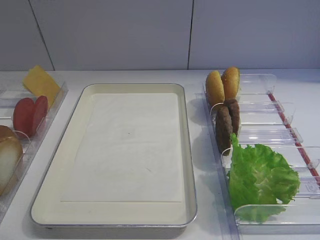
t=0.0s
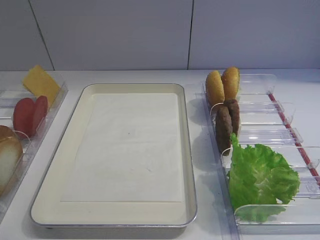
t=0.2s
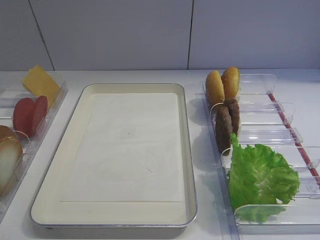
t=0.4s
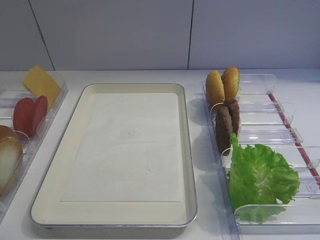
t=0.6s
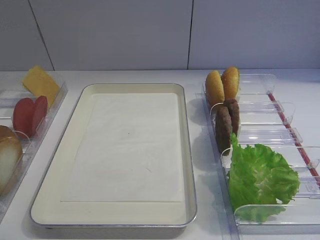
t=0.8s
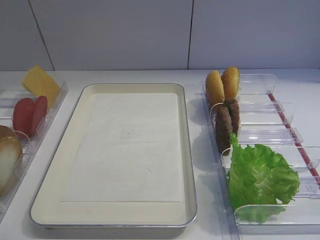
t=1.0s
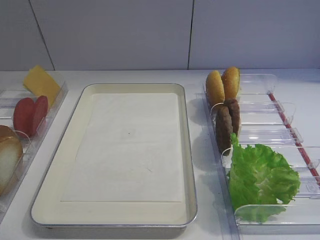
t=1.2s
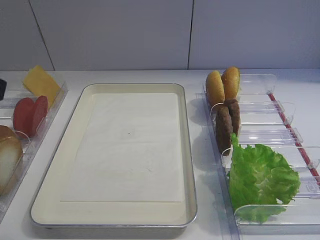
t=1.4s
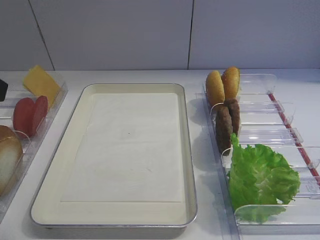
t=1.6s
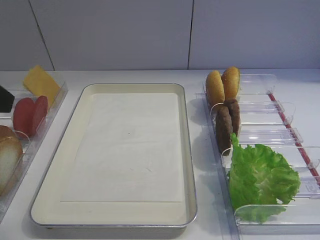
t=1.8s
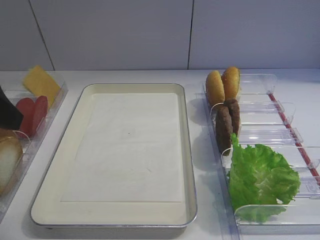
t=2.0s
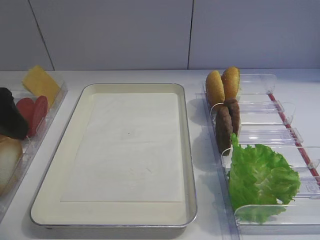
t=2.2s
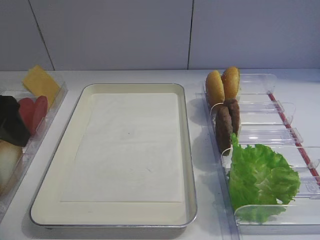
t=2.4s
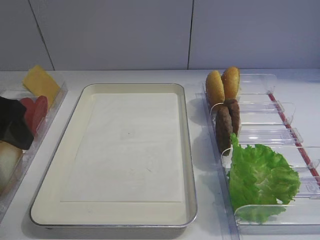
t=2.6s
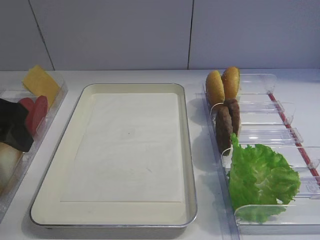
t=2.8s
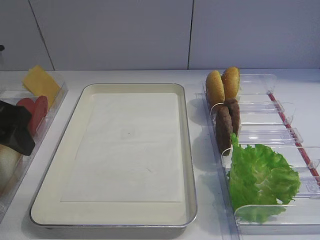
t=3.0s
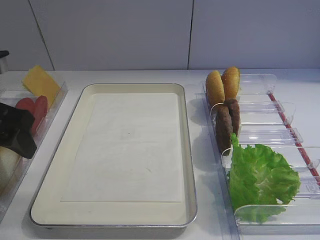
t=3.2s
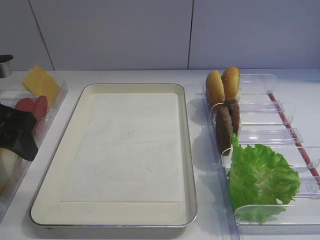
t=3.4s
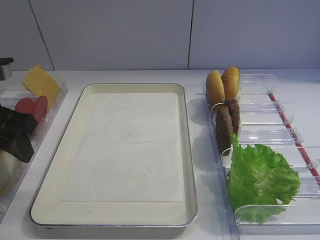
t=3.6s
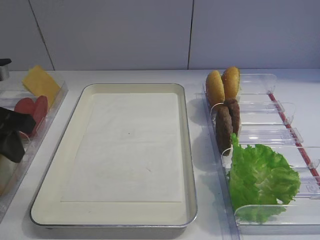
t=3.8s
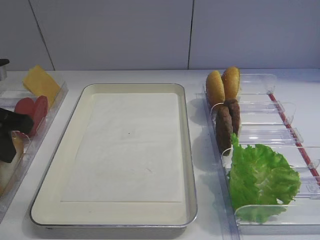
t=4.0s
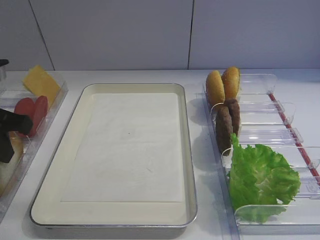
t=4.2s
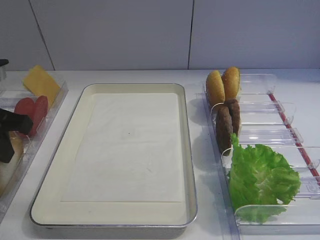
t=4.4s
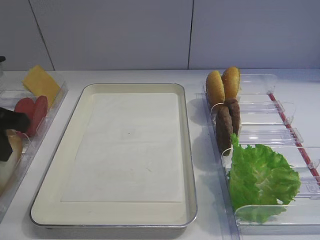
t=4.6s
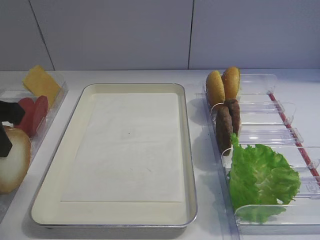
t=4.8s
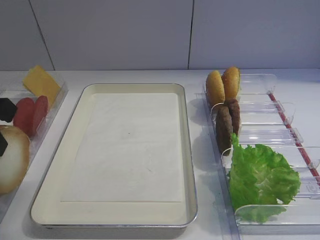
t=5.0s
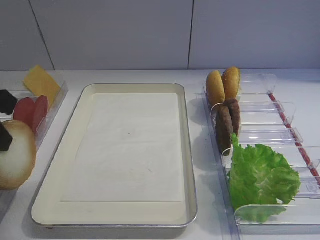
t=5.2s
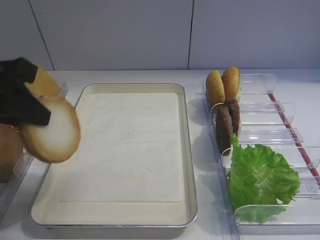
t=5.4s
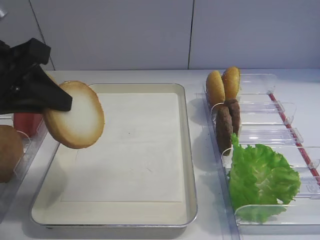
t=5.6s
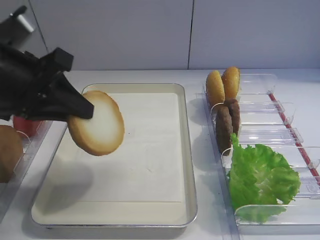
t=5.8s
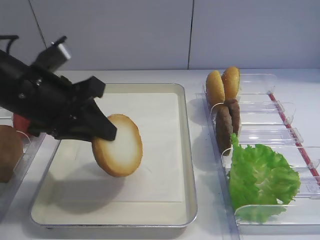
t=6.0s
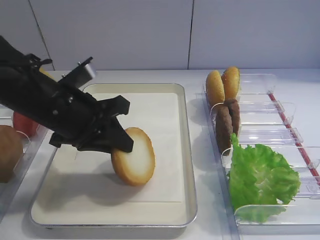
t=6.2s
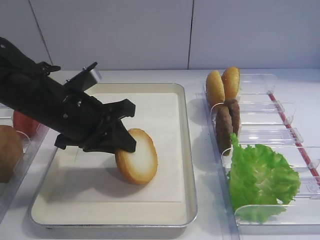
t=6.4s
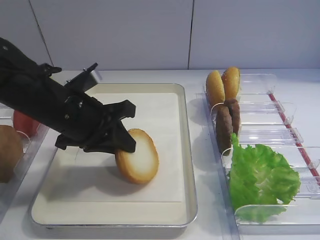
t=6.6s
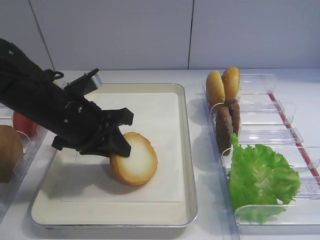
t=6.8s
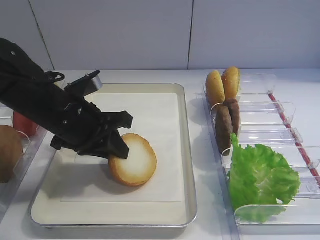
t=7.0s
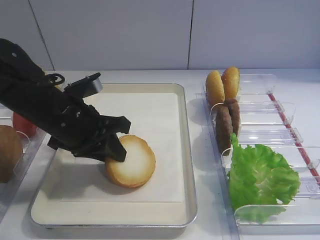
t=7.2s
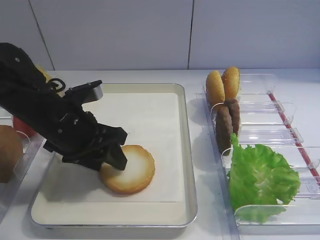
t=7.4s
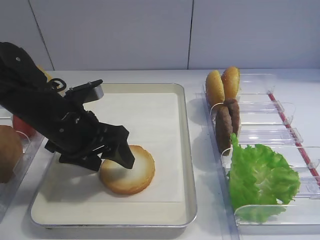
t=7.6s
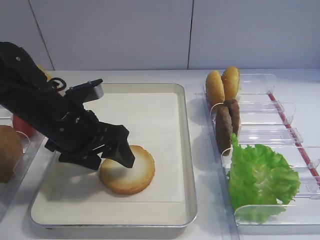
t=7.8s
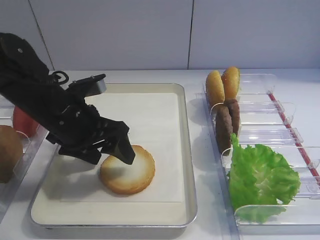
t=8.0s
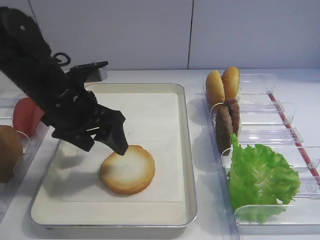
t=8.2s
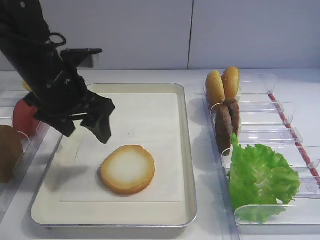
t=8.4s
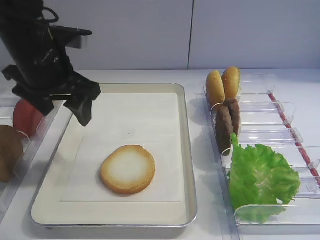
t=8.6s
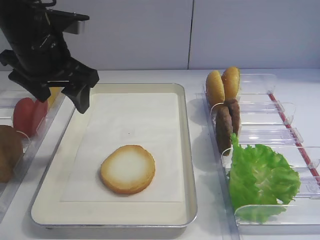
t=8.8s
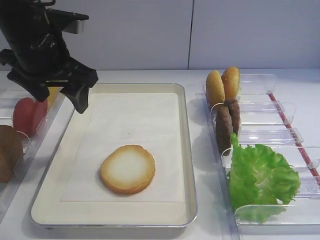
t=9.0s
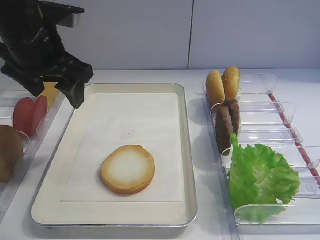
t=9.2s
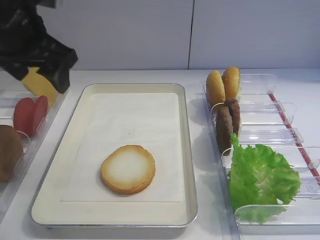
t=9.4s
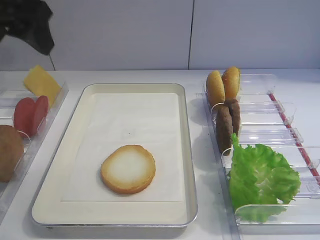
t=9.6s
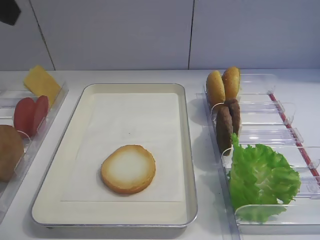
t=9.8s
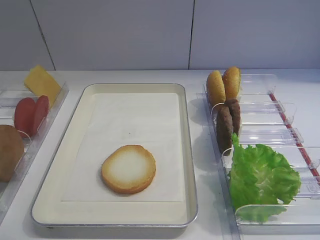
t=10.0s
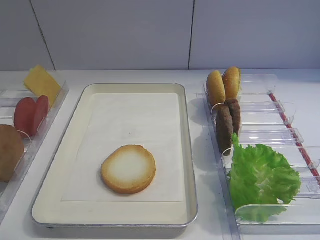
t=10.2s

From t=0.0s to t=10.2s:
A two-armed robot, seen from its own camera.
Step, from t=4.8s to t=8.2s: Place the bread slice on the tray with the left gripper.
From t=1.4s to t=3.0s: The left gripper travels forward and downward by approximately 15 cm.
From t=3.0s to t=4.4s: The left gripper closes up.
From t=4.4s to t=5.8s: The left gripper goes roughly 5 cm to the right.
From t=5.8s to t=7.2s: The left gripper is displaced downward and to the right by some 10 cm.
From t=7.2s to t=8.8s: The left gripper is displaced upward by some 10 cm, and opens up.
From t=8.8s to t=10.2s: The left gripper is displaced backward, to the left and upward by approximately 25 cm.

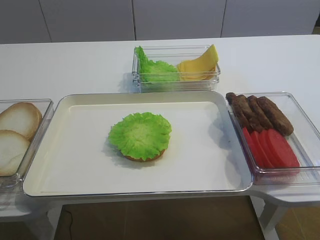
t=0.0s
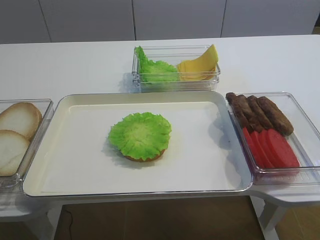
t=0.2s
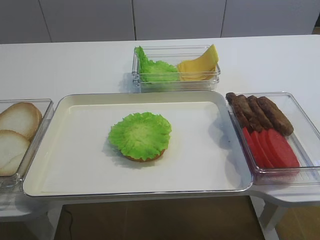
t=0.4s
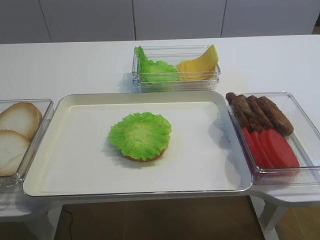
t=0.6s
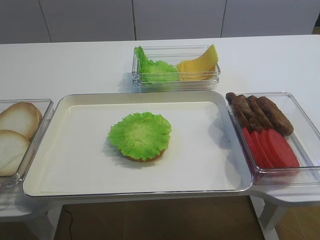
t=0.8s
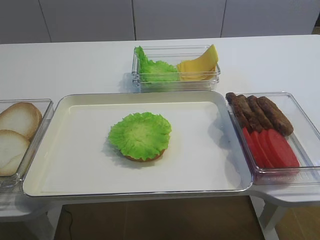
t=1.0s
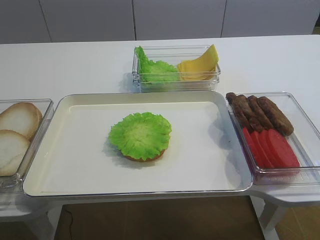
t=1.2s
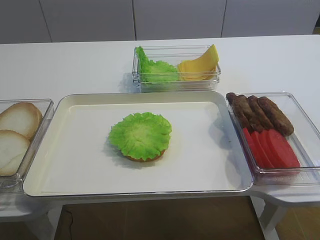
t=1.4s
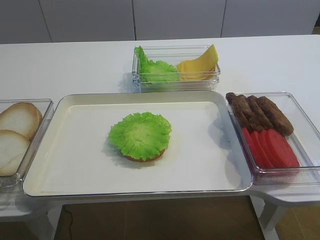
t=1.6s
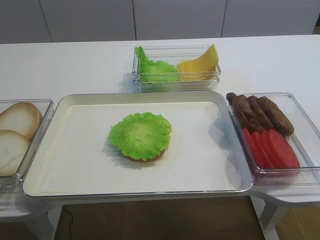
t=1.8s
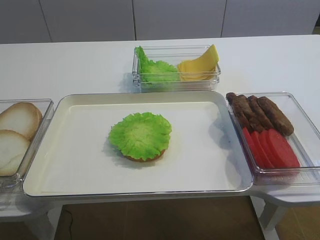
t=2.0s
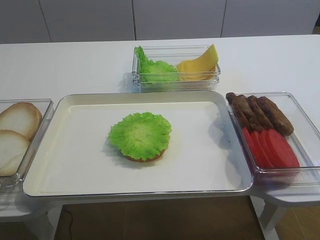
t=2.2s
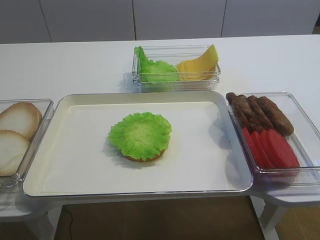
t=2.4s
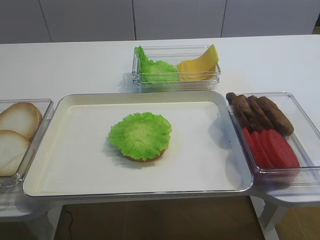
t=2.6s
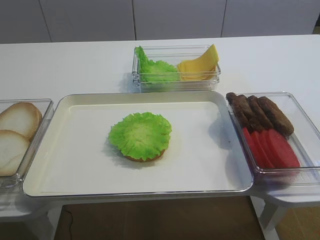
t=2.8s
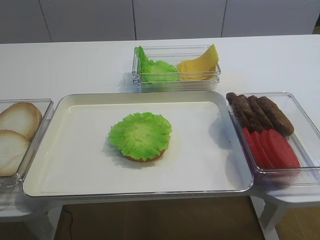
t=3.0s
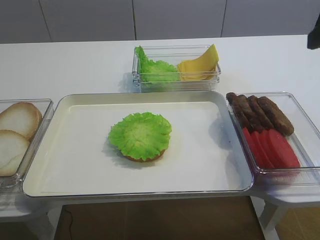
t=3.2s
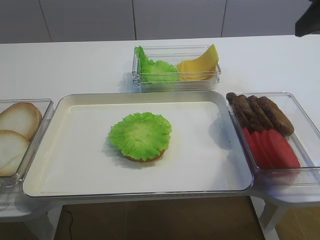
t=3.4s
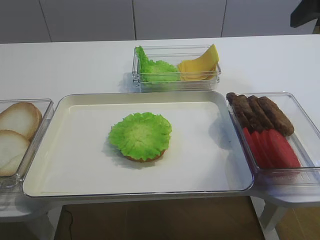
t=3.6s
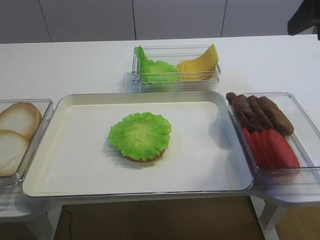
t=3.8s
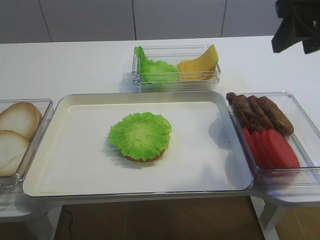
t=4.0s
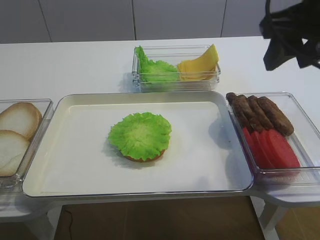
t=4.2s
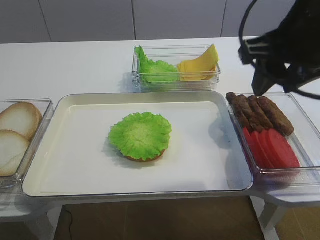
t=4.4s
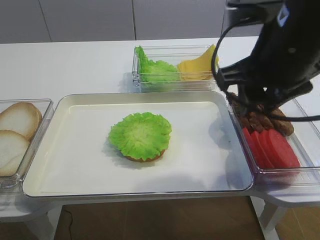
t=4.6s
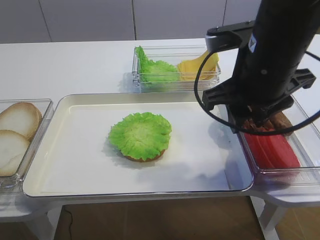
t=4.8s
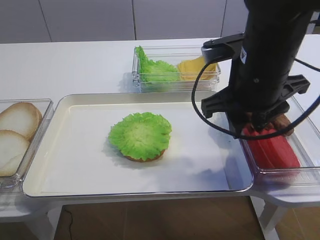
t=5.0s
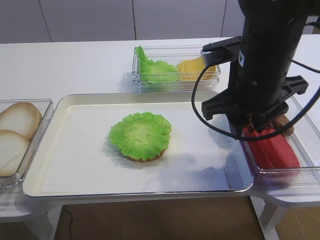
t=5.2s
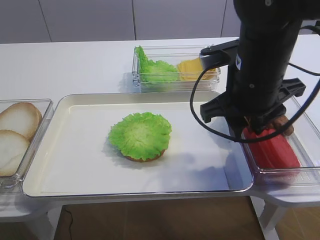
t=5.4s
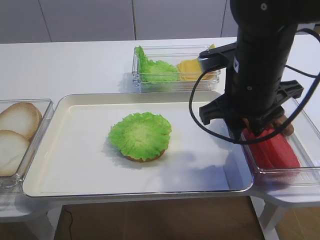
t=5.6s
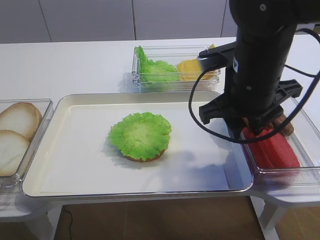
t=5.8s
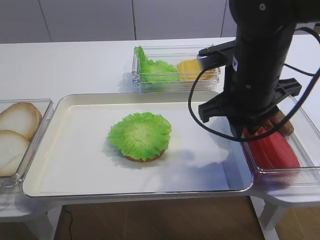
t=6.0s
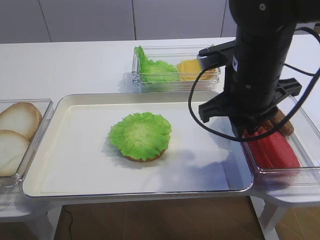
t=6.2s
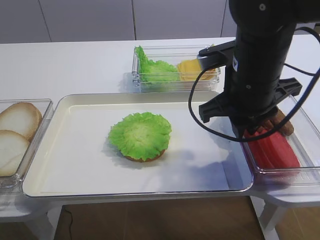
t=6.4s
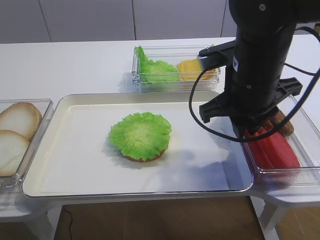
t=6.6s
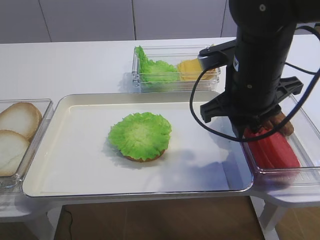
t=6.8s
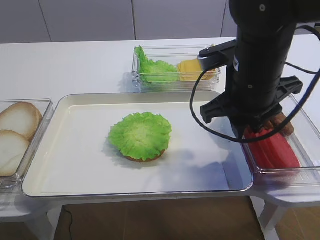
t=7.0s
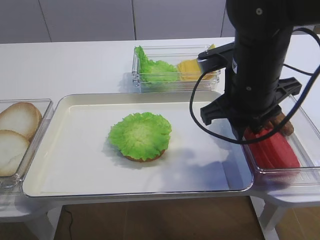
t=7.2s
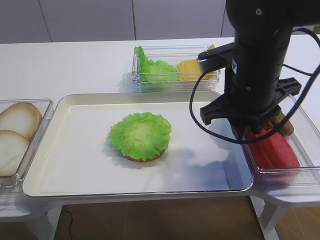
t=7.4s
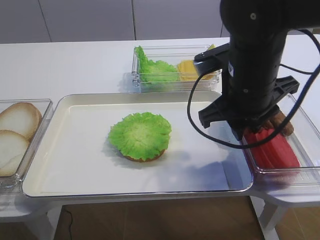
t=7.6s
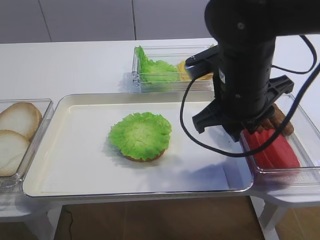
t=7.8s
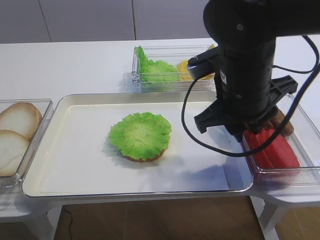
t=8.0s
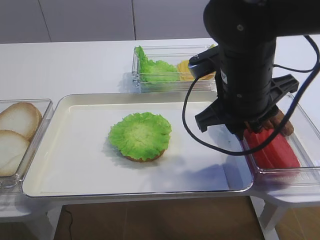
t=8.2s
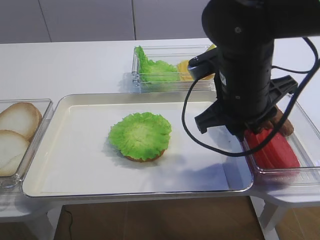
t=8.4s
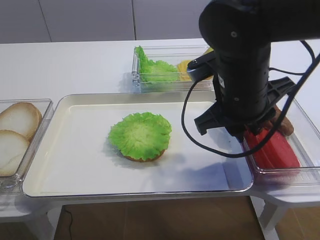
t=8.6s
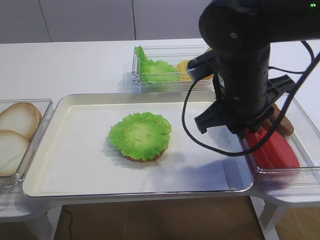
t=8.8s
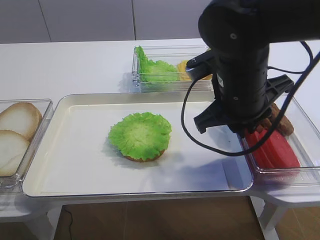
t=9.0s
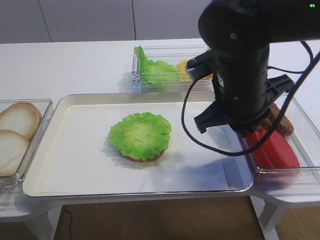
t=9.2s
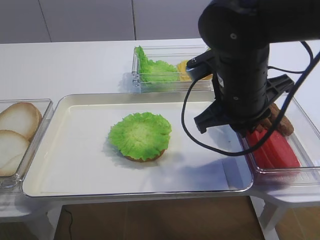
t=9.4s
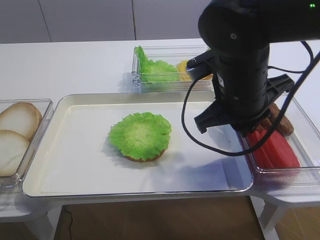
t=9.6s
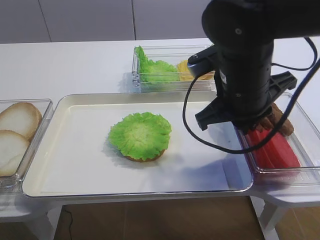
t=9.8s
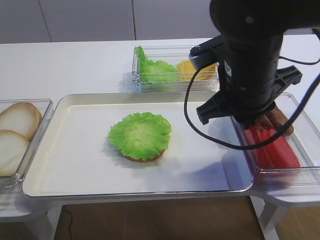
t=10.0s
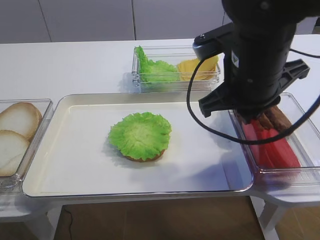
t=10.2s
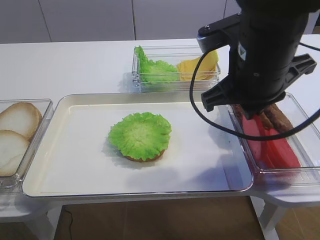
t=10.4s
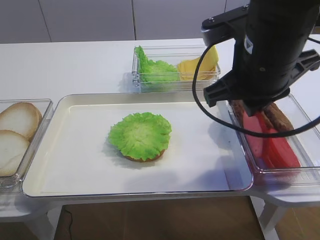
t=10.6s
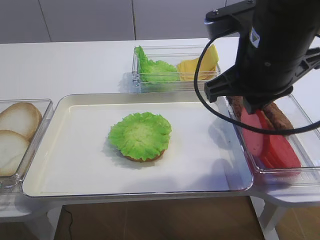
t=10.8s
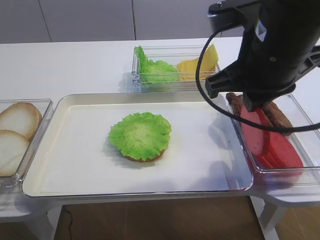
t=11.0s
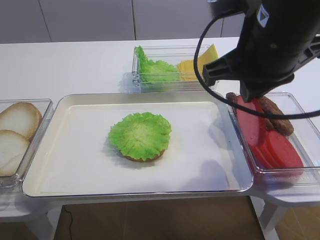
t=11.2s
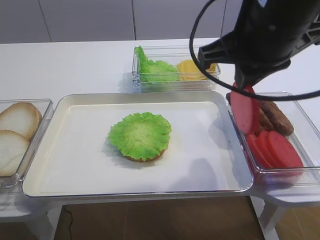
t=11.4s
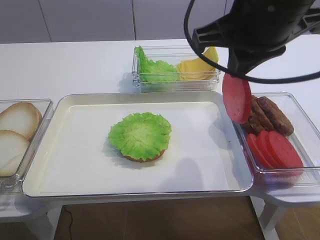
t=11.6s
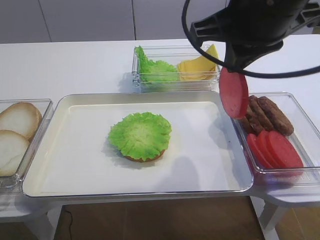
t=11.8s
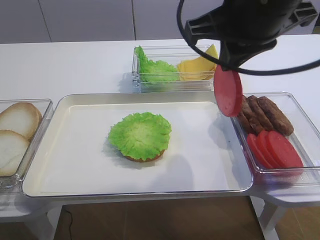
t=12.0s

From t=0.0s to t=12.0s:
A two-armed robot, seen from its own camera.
Step, from t=0.0s to t=10.2s: Pick up the tomato slice with the right gripper.
From t=1.6s to t=3.0s: The right gripper is displaced forward and upward by some 20 cm.
From t=3.0s to t=4.4s: The right gripper shifts about 10 cm to the left and forward.
From t=4.4s to t=6.0s: The right gripper moves downward and to the left, roughly 10 cm, and closes up.
From t=6.0s to t=7.6s: Both grippers stay put.
From t=7.6s to t=10.4s: There are only small adjustments of the grippers.
From t=10.4s to t=12.0s: The right gripper shifts approximately 10 cm upward.
